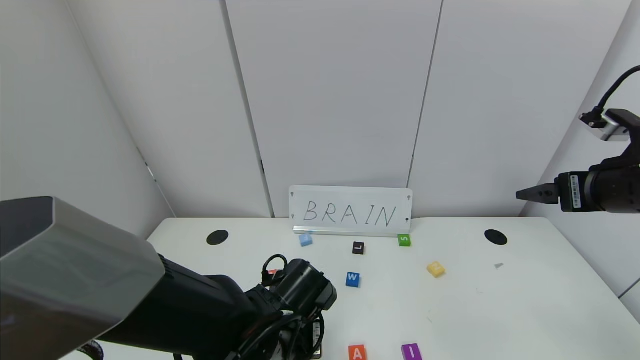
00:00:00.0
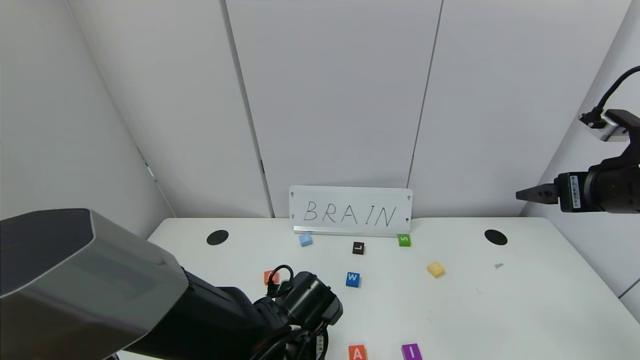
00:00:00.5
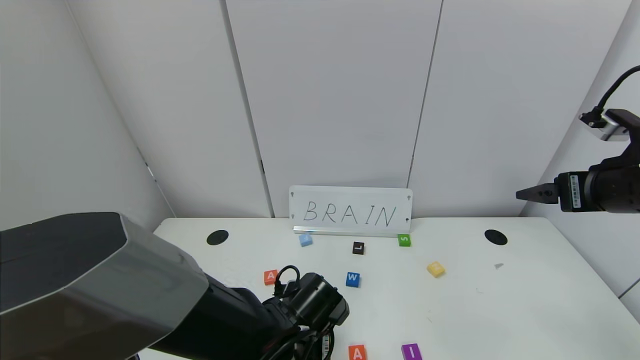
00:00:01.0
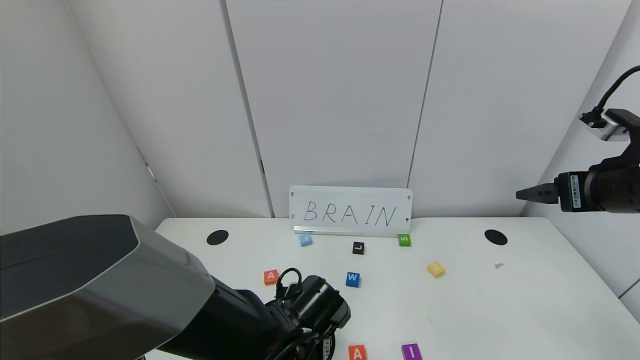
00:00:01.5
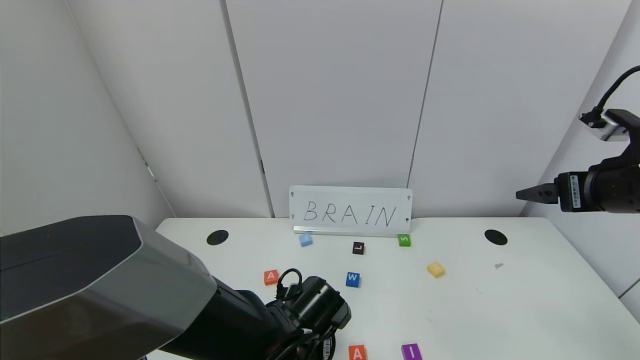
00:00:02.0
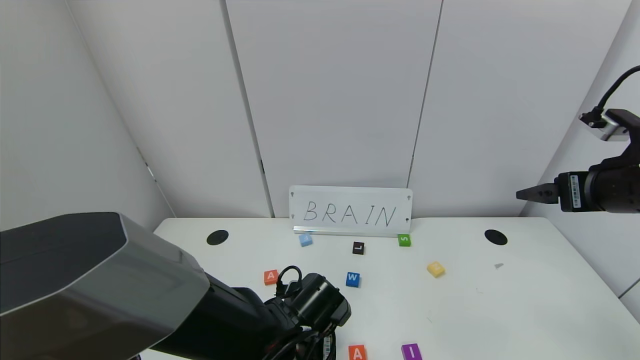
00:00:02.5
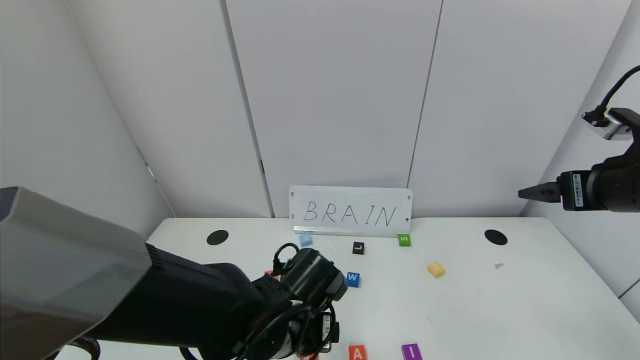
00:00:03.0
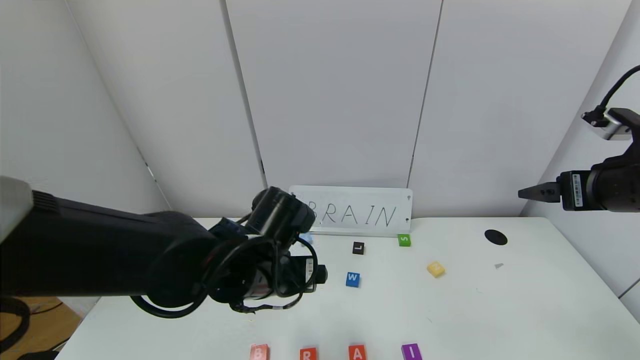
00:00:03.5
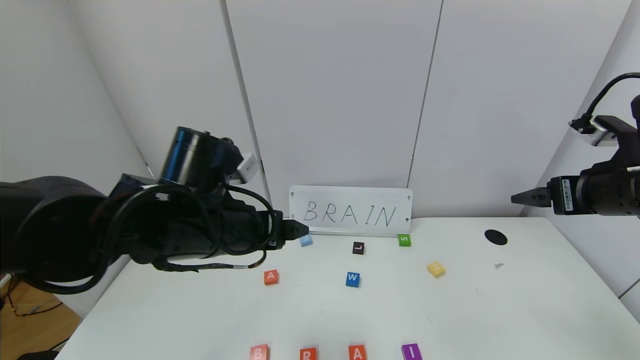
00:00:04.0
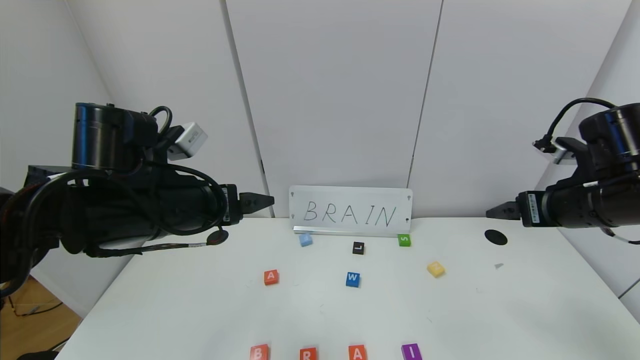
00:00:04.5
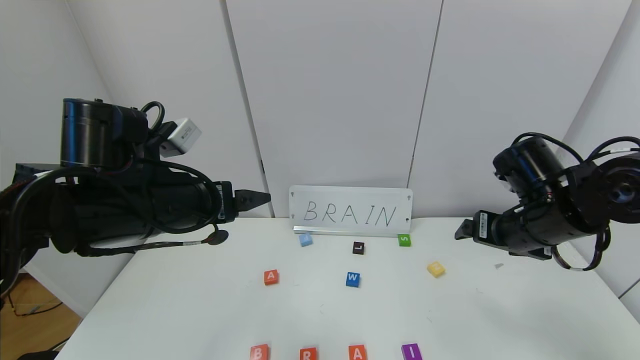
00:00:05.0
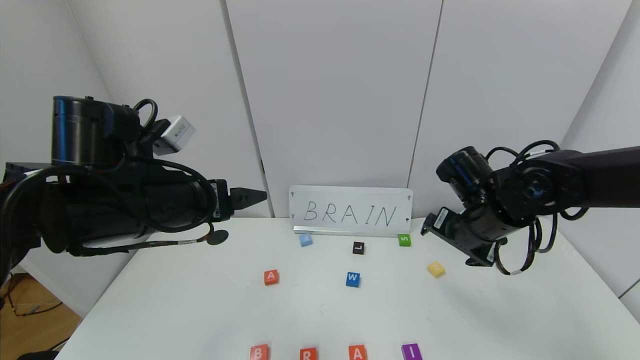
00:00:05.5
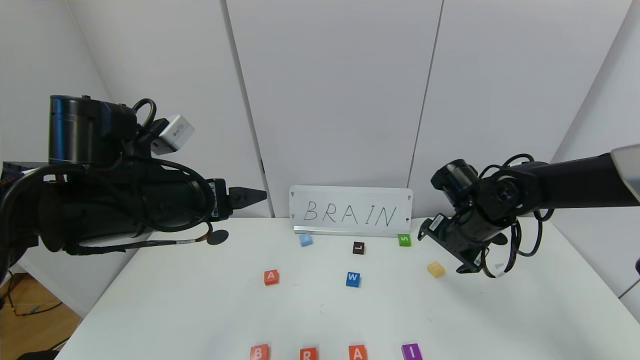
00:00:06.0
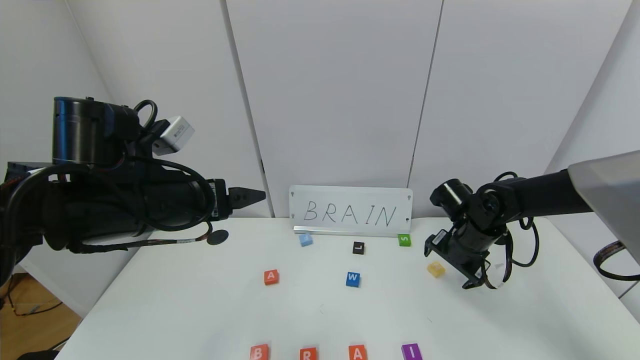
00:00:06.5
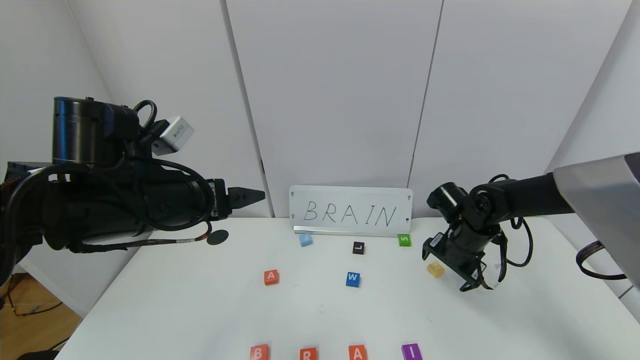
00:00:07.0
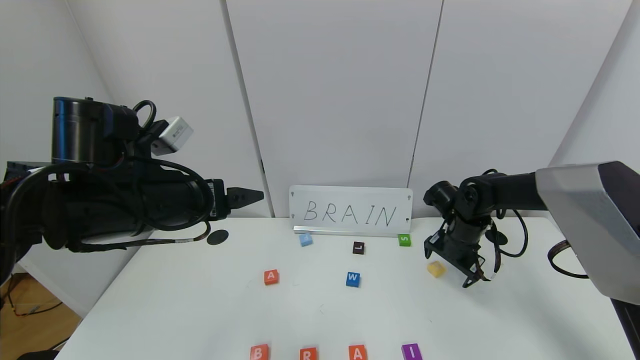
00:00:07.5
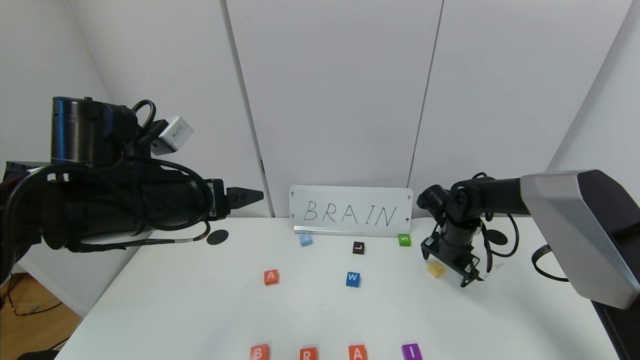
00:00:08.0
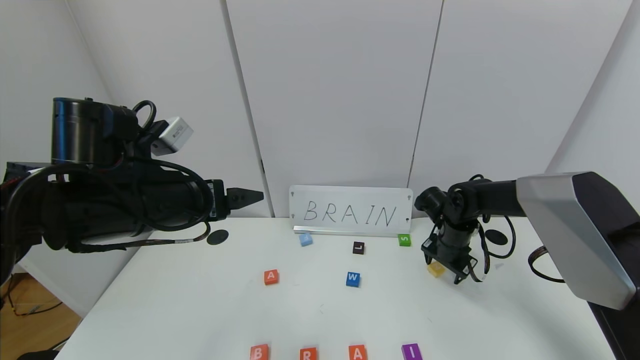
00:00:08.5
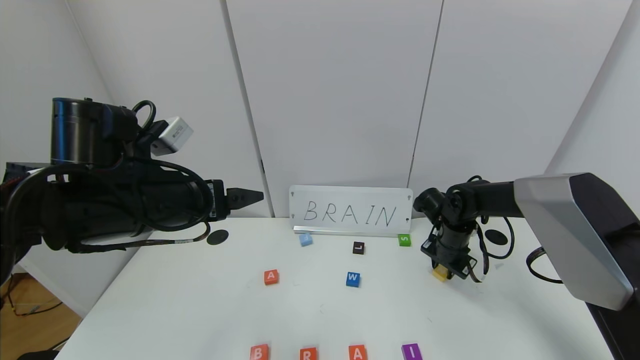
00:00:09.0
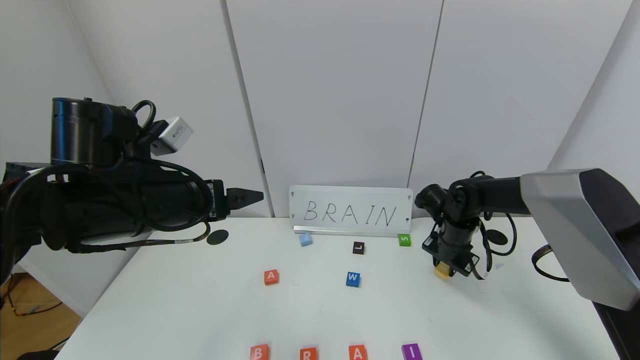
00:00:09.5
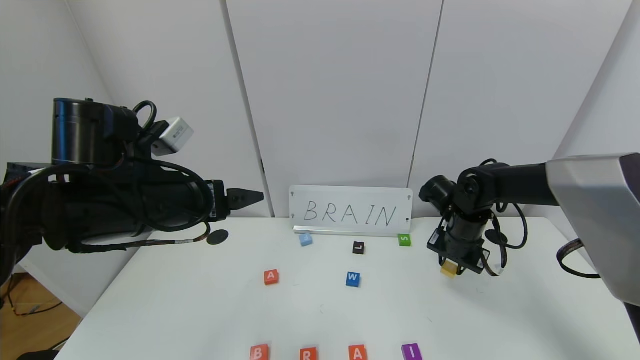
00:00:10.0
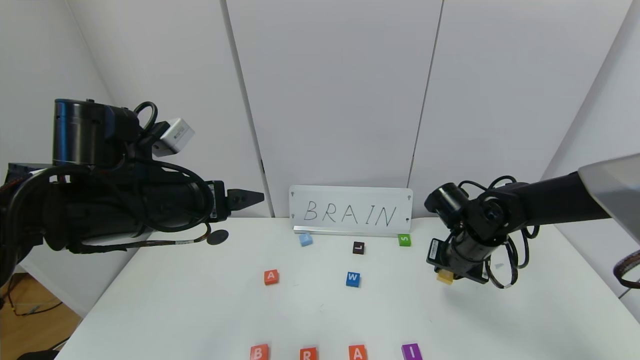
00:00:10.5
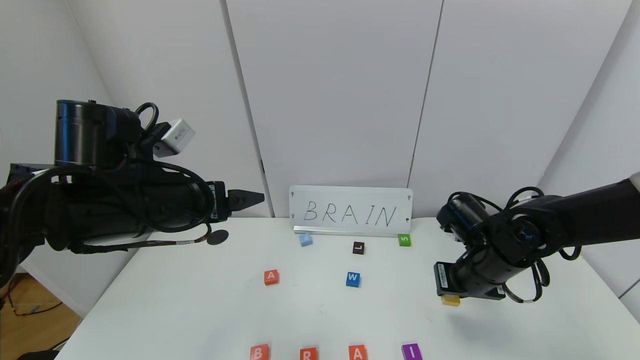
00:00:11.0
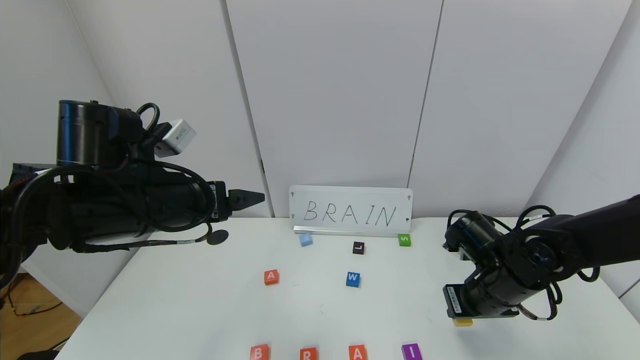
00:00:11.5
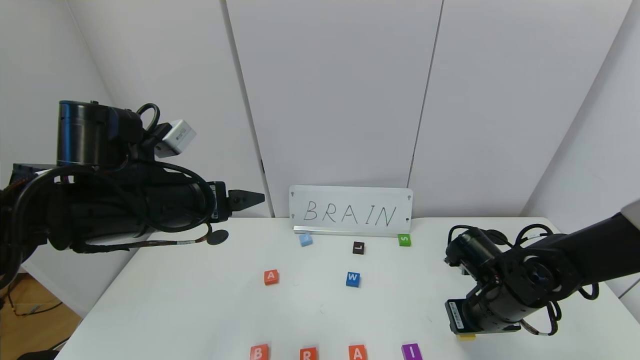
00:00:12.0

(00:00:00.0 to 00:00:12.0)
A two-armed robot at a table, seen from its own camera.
Task of the whole recording: use the gripper to find blocks with the letters b, a, a, and i on the table and arrange them into BAAI, then find r and N and turn the arranged baai into brian.
00:00:00.0 - 00:00:02.0: The left gripper opens up.
00:00:02.0 - 00:00:04.0: The left gripper goes about 20 cm upward and to the left, and opens its fingers.
00:00:04.0 - 00:00:06.0: The left gripper travels to the left by approximately 5 cm, while the right gripper travels downward, to the left and forward by some 20 cm.
00:00:06.0 - 00:00:08.0: The right gripper heads downward and forward, covering roughly 10 cm.
00:00:08.0 - 00:00:10.0: The right gripper closes its fingers.
00:00:10.0 - 00:00:12.0: The right gripper moves backward, about 10 cm.

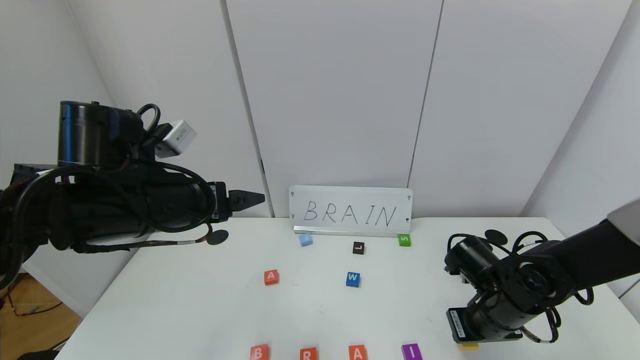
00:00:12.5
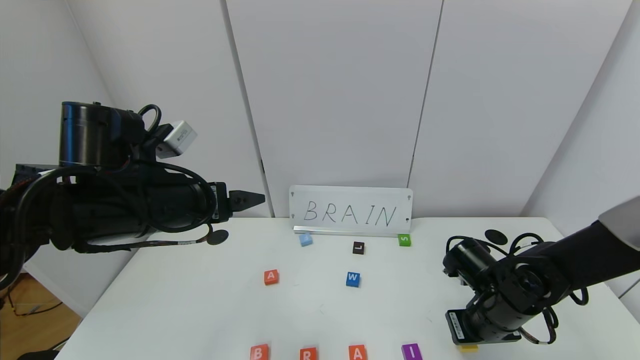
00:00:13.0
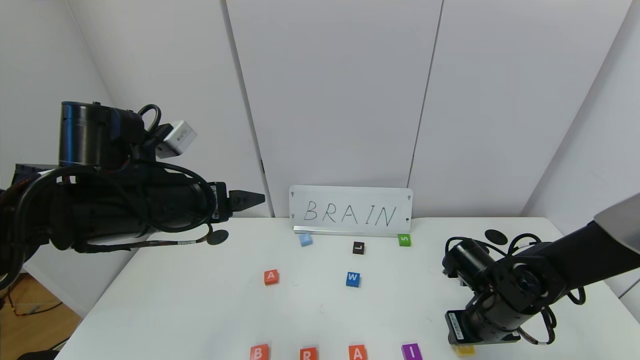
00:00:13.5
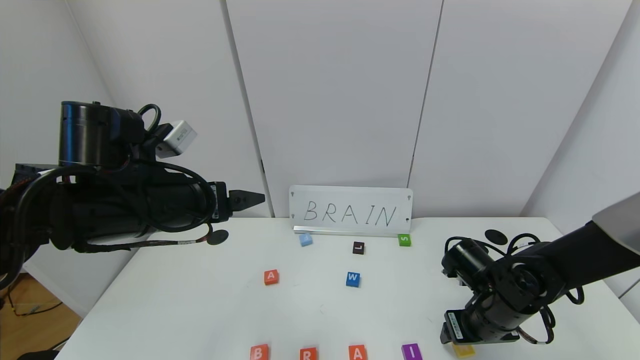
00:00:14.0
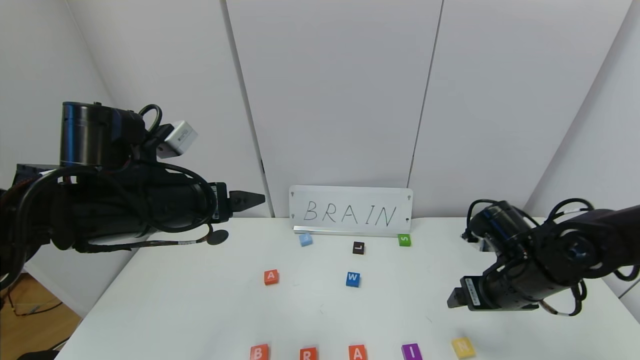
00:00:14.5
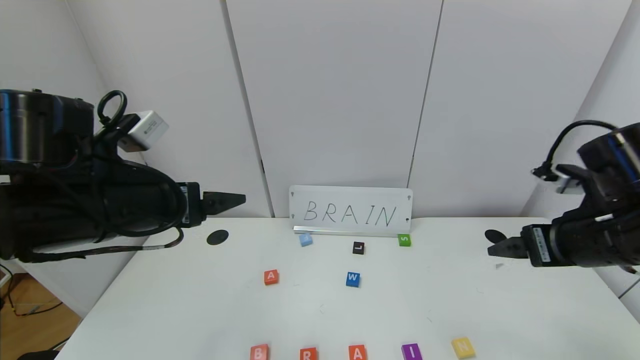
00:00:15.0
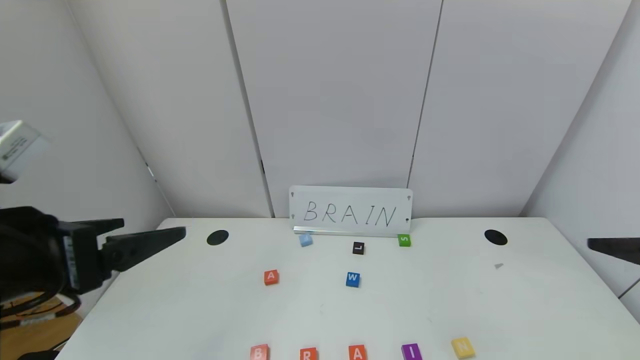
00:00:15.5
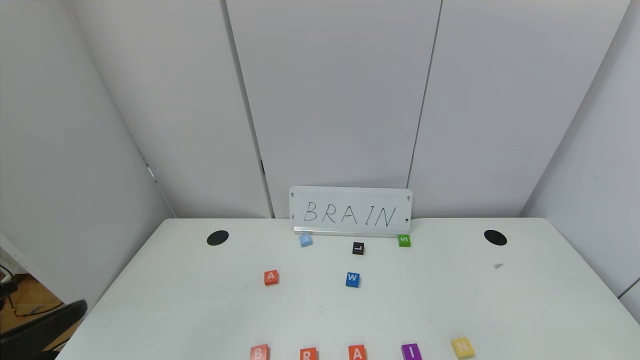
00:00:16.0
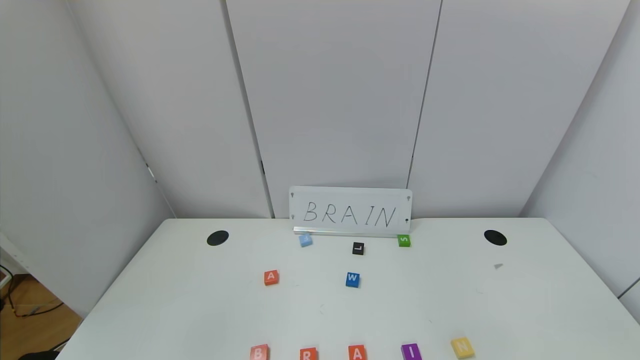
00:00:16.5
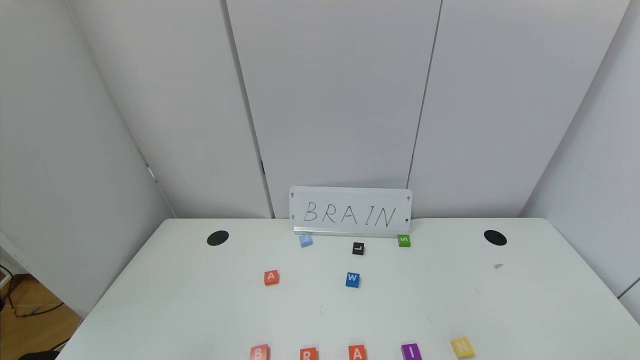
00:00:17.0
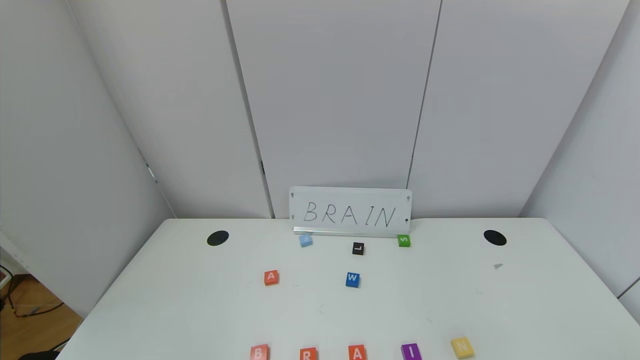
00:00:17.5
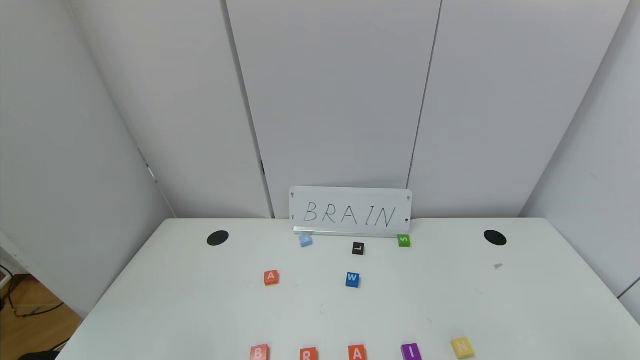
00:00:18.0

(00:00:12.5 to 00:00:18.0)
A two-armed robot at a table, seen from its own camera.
Task of the whole recording: use the gripper to find blocks with the letters b, a, a, and i on the table and arrange them into BAAI, then find r and N and turn the arranged baai into brian.
00:00:12.5 - 00:00:14.5: The right gripper travels upward by approximately 5 cm, and opens.
00:00:14.5 - 00:00:16.0: The right gripper is displaced backward and upward by some 30 cm, while the left gripper moves backward, some 20 cm.
00:00:16.0 - 00:00:18.0: The left gripper travels downward and backward by approximately 15 cm.
